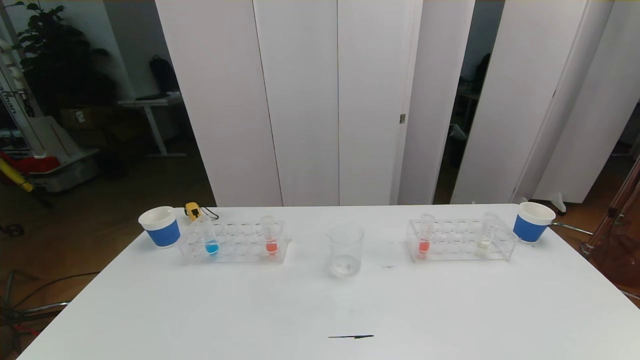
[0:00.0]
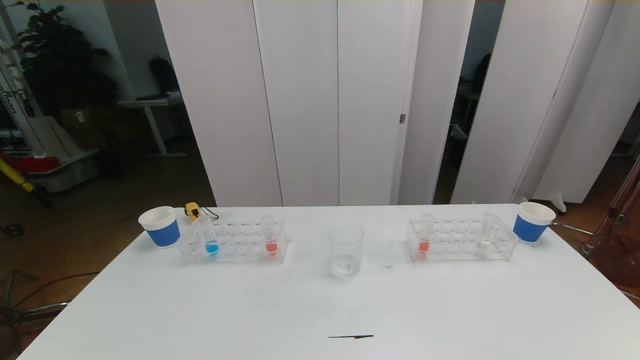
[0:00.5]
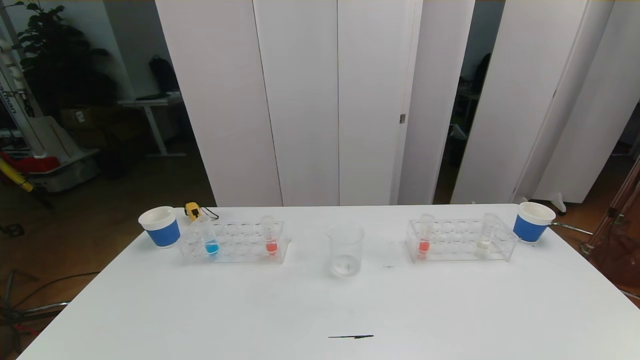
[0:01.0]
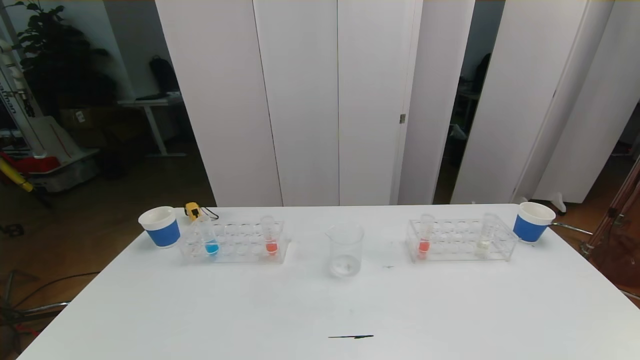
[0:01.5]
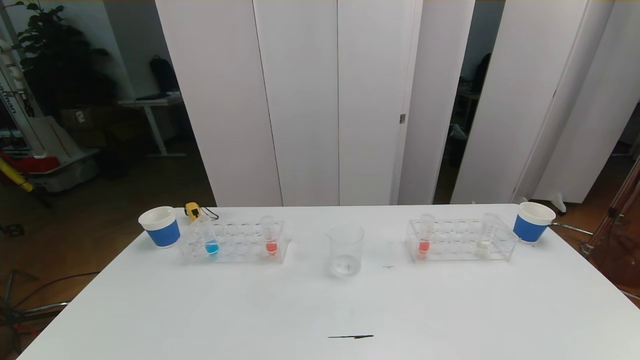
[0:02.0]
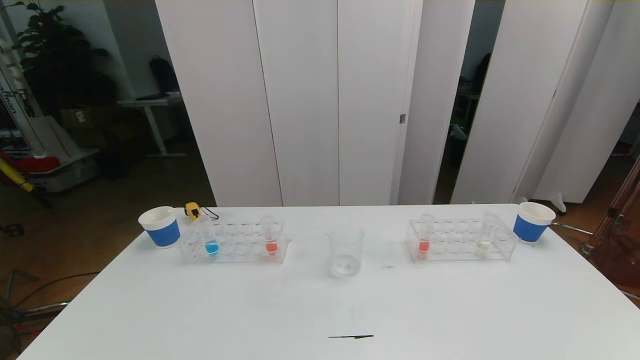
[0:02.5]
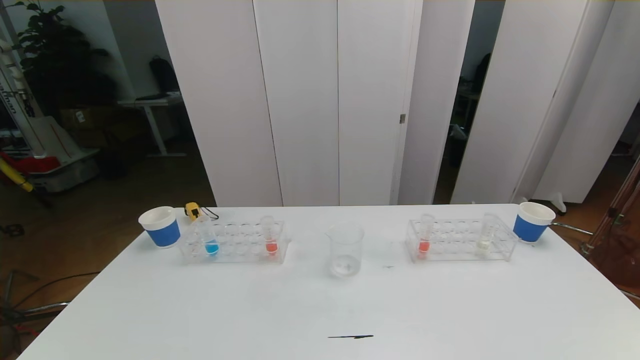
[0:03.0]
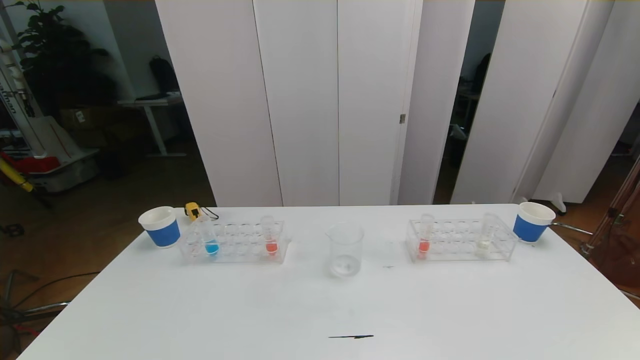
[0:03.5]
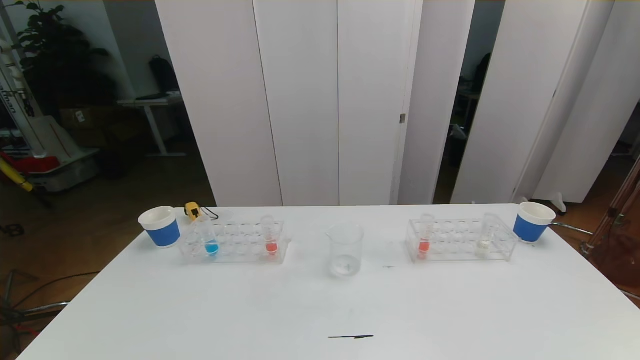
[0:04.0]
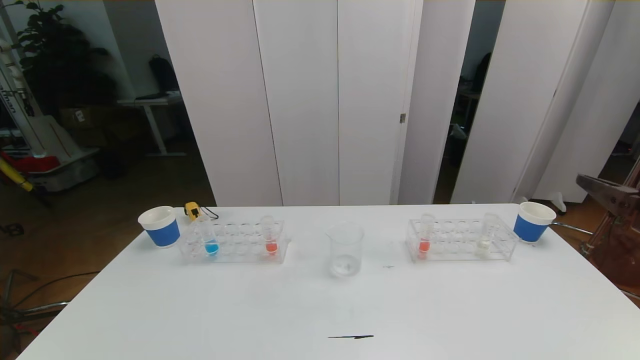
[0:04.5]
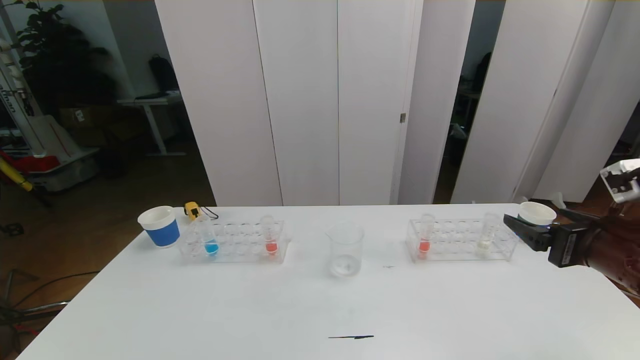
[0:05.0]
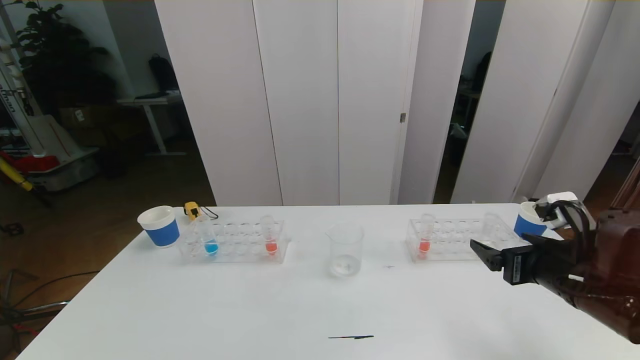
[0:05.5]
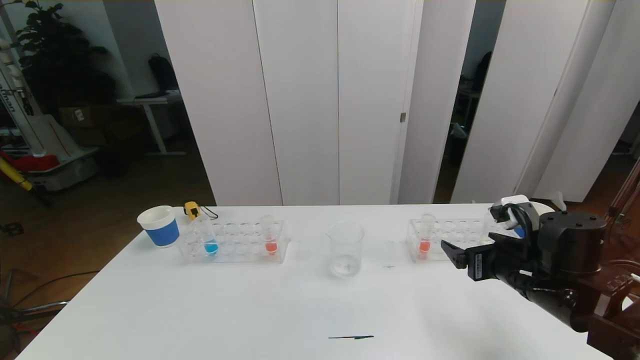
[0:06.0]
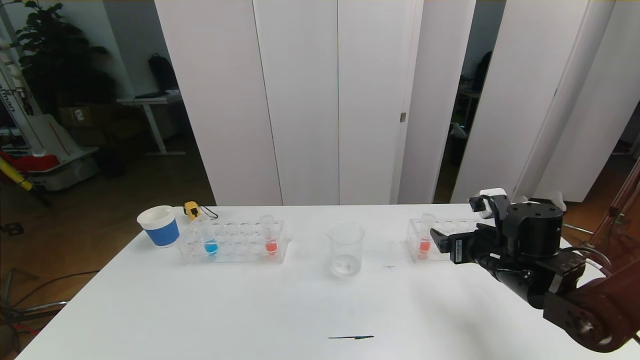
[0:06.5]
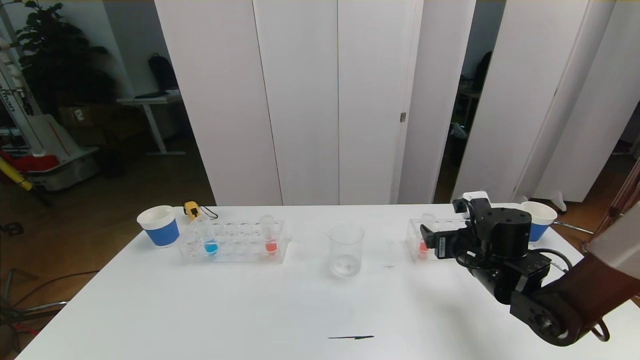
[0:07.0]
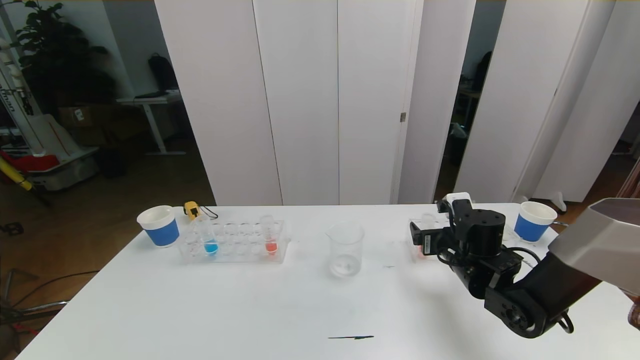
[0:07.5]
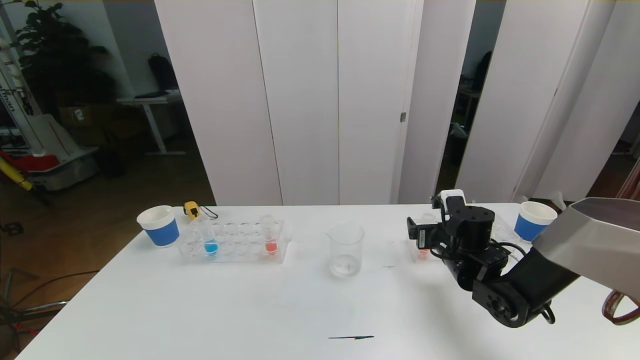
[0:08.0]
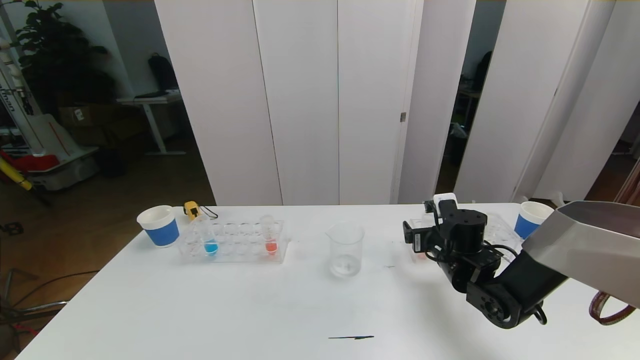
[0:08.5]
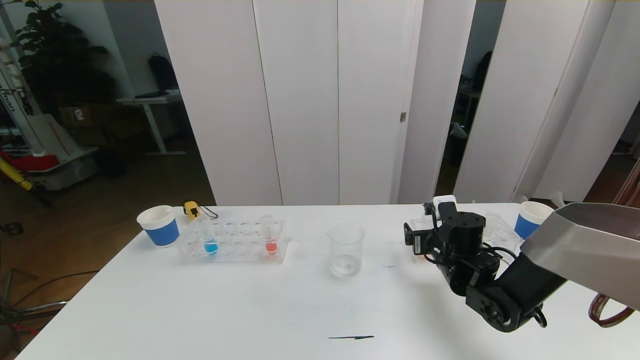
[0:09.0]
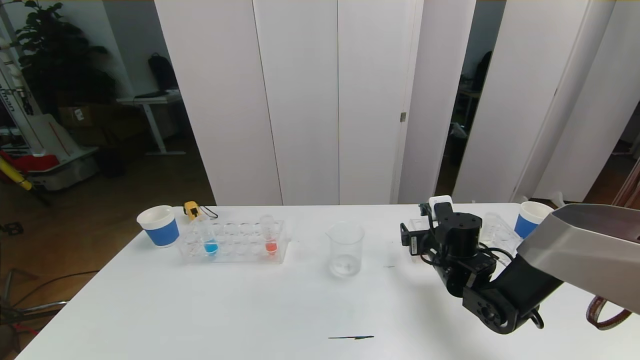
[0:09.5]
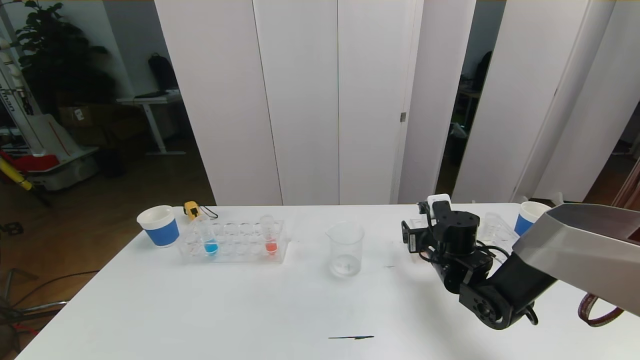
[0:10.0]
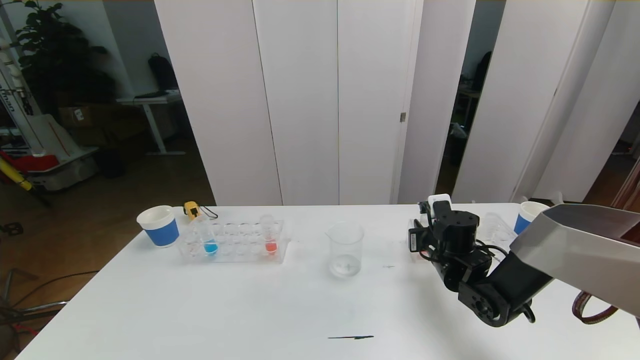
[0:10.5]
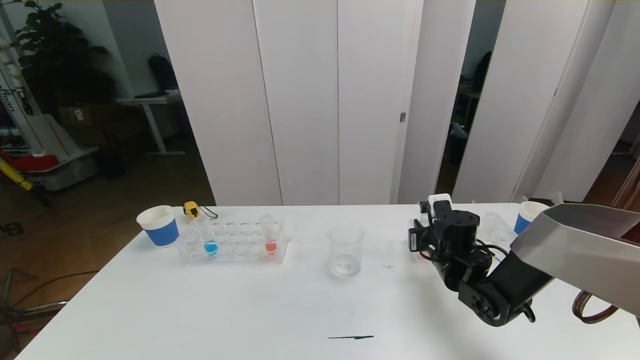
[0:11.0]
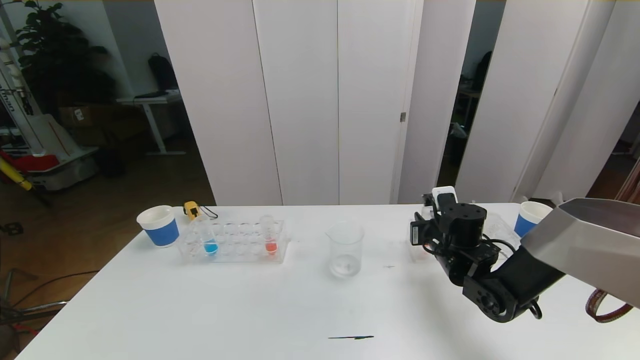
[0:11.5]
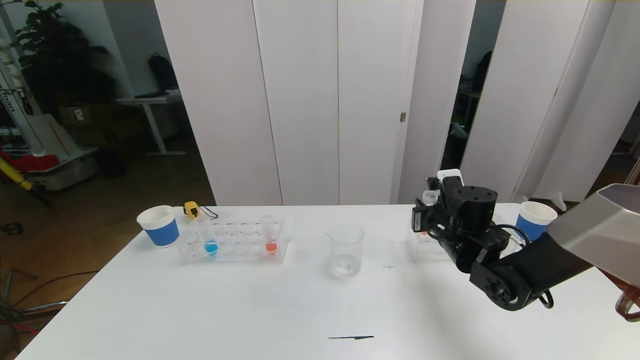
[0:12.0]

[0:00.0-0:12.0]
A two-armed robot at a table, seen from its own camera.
Task of the whole recording: pick up the test tube with red pigment the test tube with blue pigment and the test tube with white pigment by grippers and pour them into the beaker.
0:00.0 to 0:02.0: Both grippers stay about where they are.
0:04.0 to 0:06.0: The right gripper goes approximately 25 cm forward, downward and to the left.
0:06.0 to 0:08.0: The right gripper is displaced forward, downward and to the left by some 15 cm.
0:08.0 to 0:10.0: The grippers move only a little.
0:10.0 to 0:12.0: The right gripper shifts by roughly 5 cm, and closes.

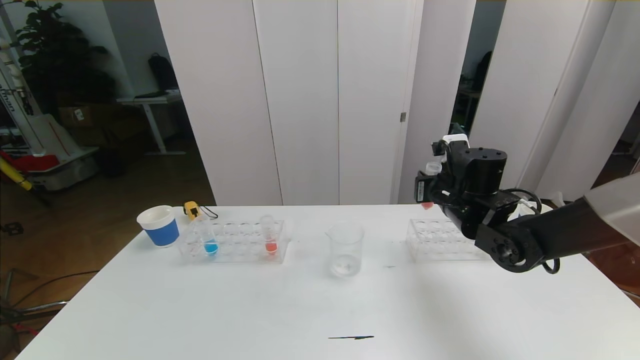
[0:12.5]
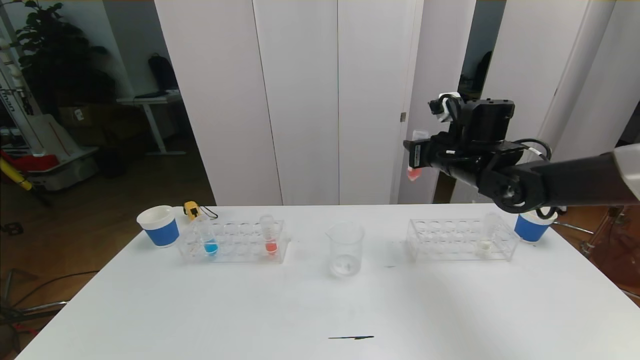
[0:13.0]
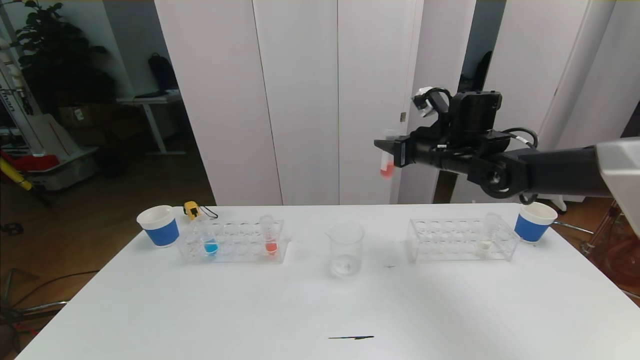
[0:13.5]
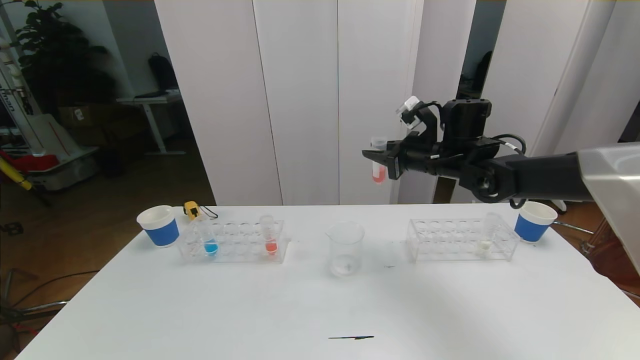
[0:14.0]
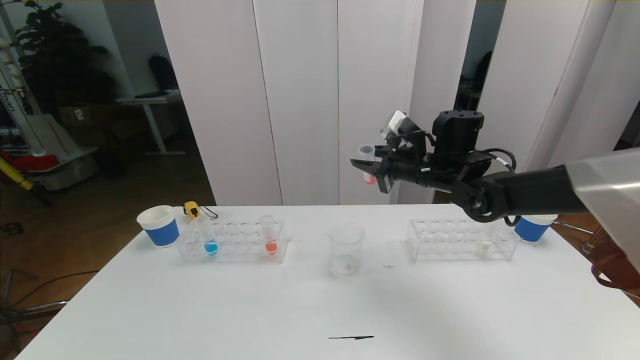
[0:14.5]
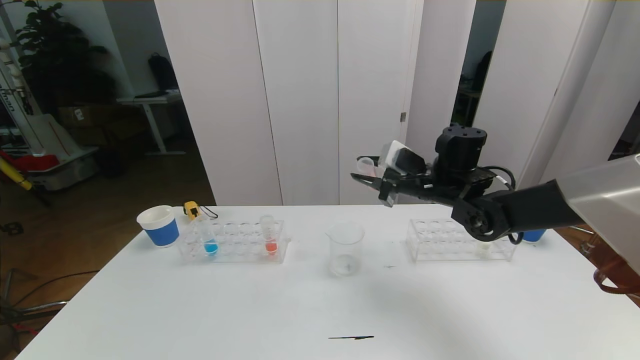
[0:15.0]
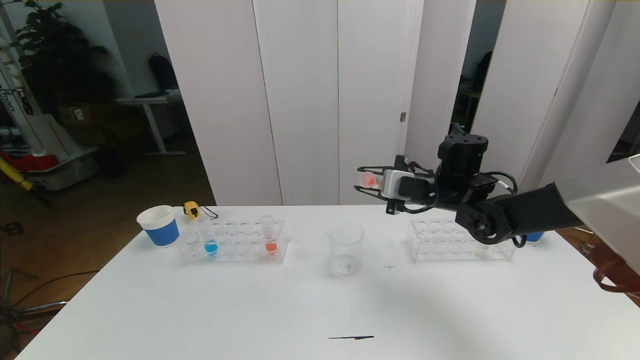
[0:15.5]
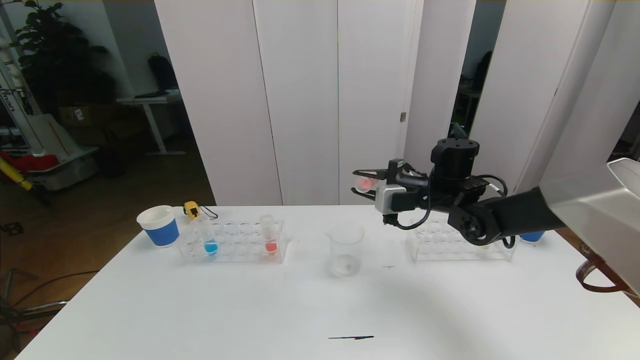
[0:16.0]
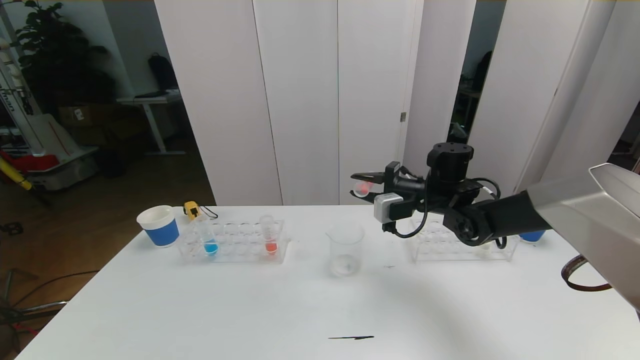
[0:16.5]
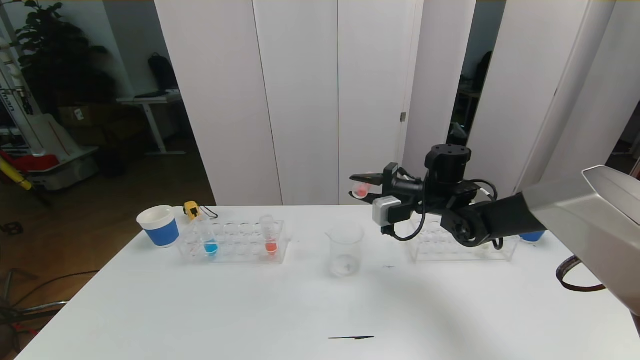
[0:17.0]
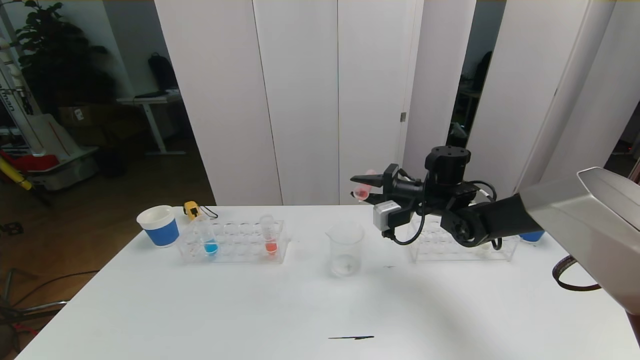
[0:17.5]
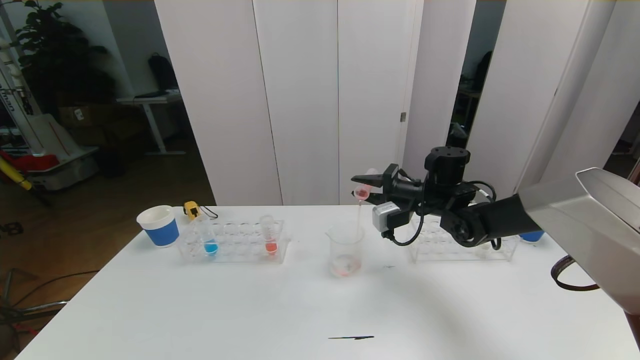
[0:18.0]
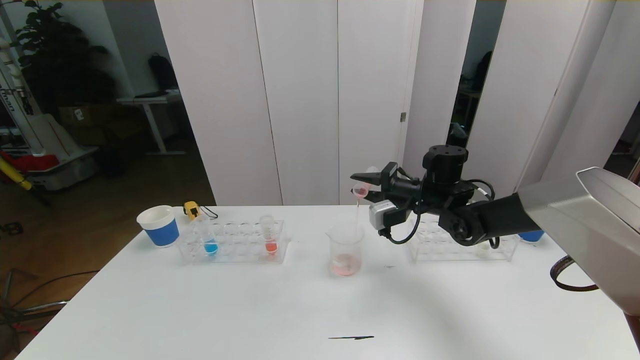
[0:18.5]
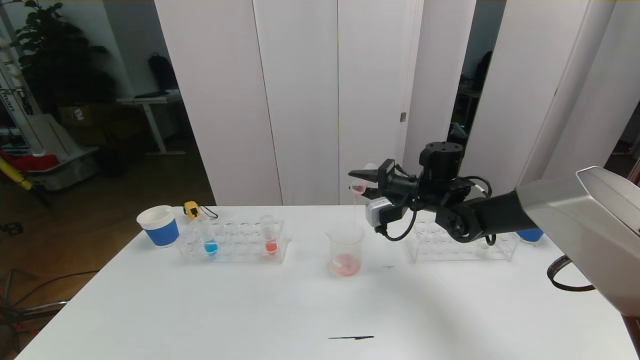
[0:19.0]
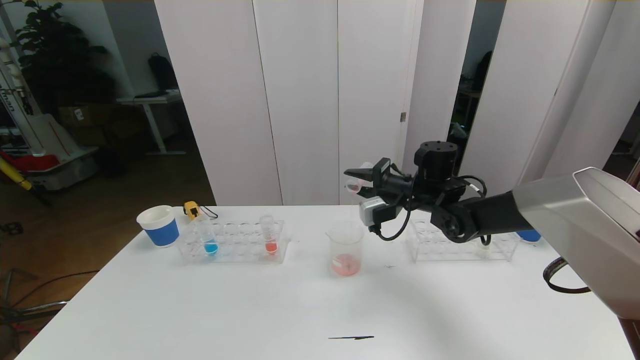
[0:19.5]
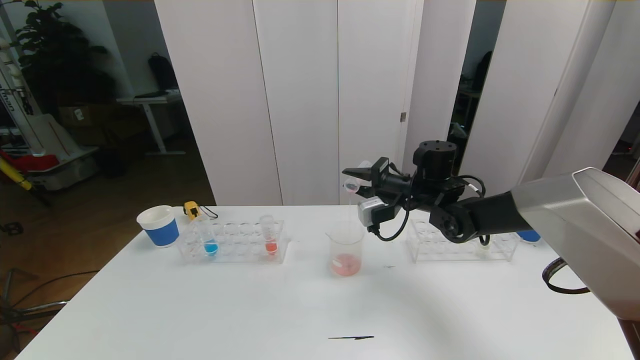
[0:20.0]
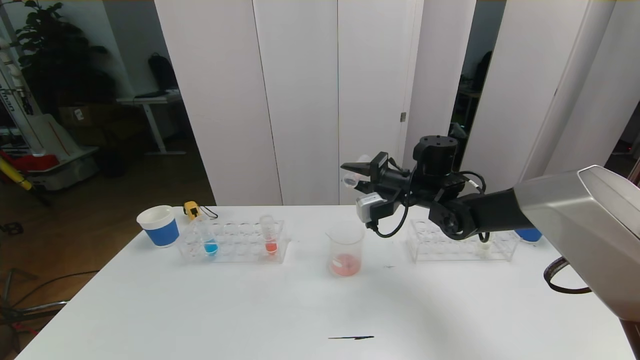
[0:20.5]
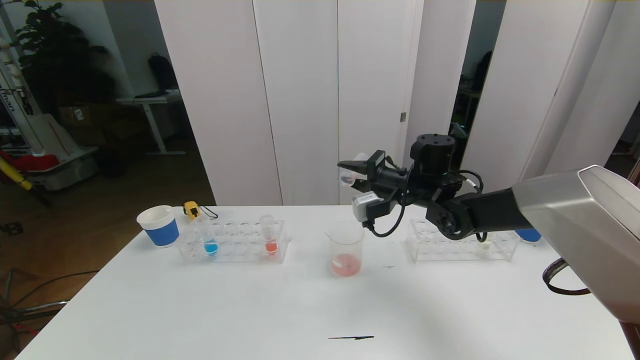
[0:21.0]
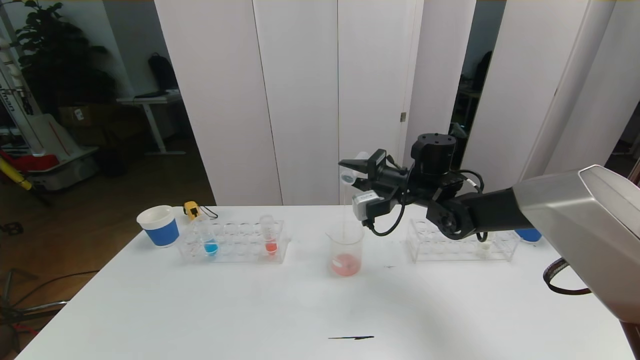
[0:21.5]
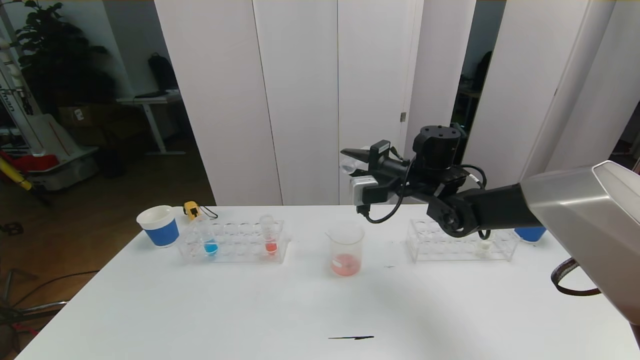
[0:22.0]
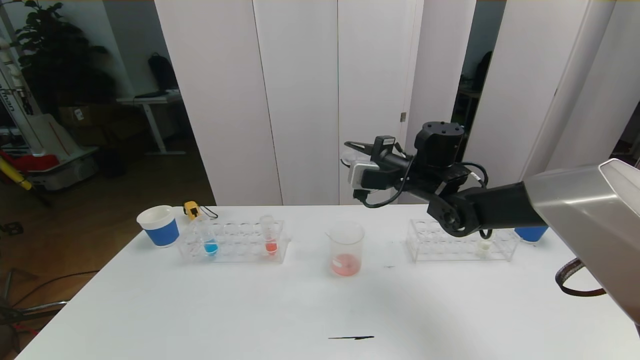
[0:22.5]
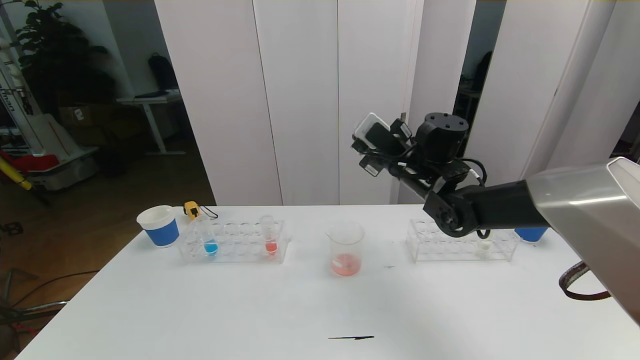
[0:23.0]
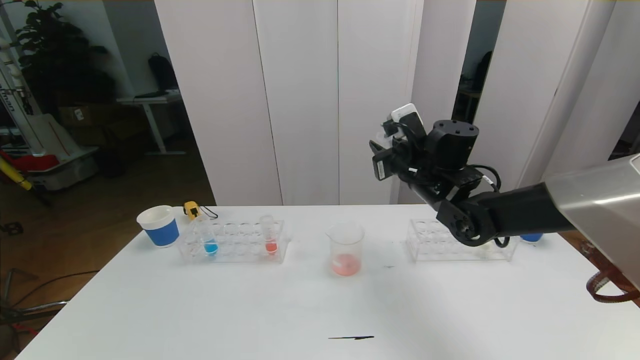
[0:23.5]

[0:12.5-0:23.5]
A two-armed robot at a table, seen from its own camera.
Task of the whole recording: pick up the test tube with red pigment the test tube with blue pigment and the test tube with white pigment by grippers and pour them into the beaker.
0:12.5 to 0:14.5: The right gripper moves roughly 5 cm.
0:16.0 to 0:18.0: The grippers stay close to where they were, moving slightly.
0:18.0 to 0:21.5: The grippers stay close to where they were, moving slightly.
